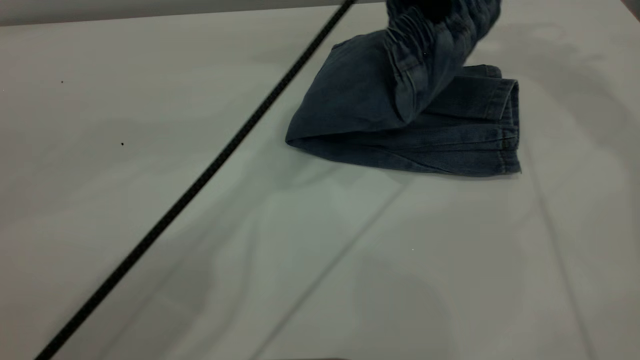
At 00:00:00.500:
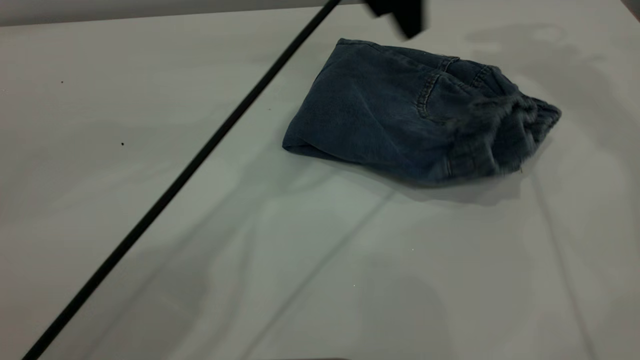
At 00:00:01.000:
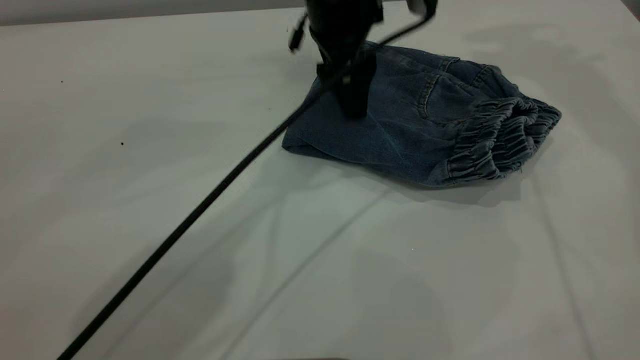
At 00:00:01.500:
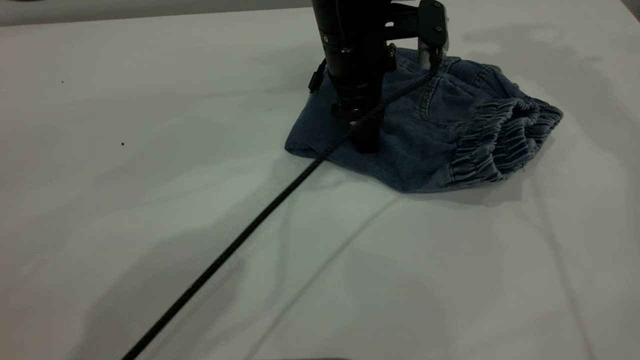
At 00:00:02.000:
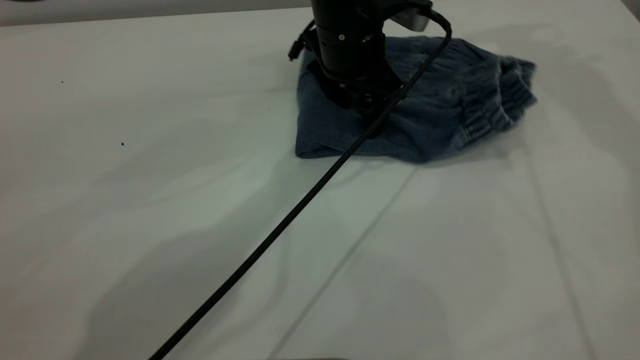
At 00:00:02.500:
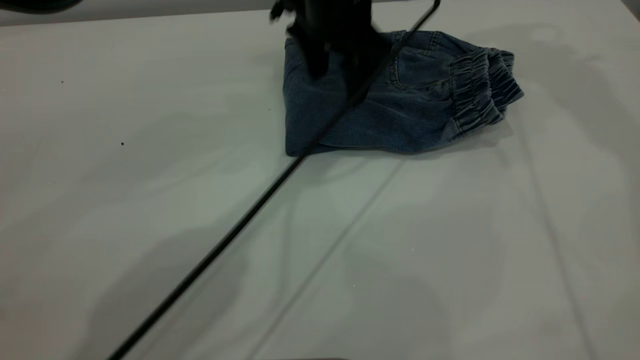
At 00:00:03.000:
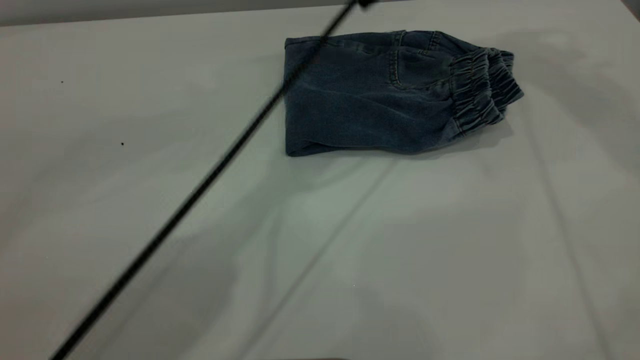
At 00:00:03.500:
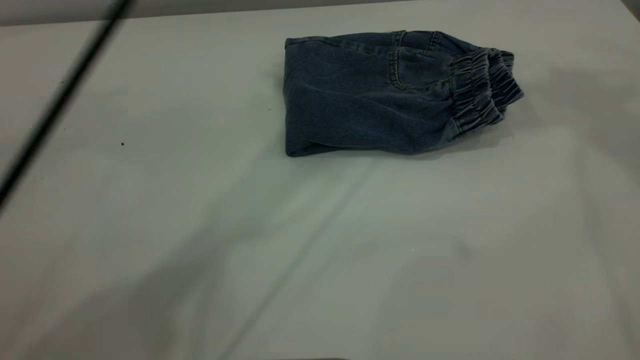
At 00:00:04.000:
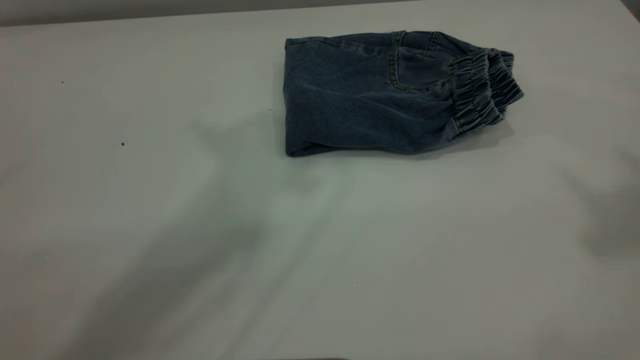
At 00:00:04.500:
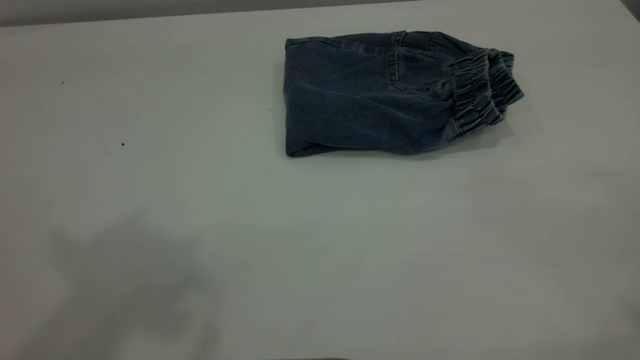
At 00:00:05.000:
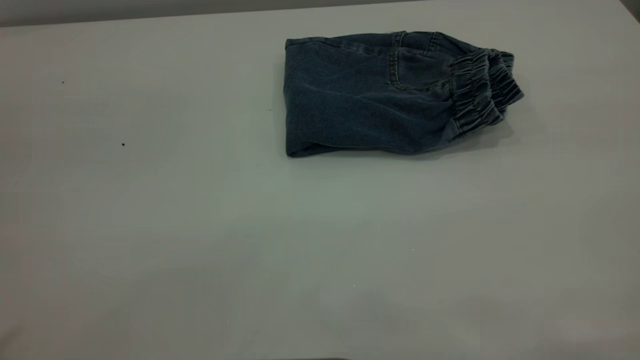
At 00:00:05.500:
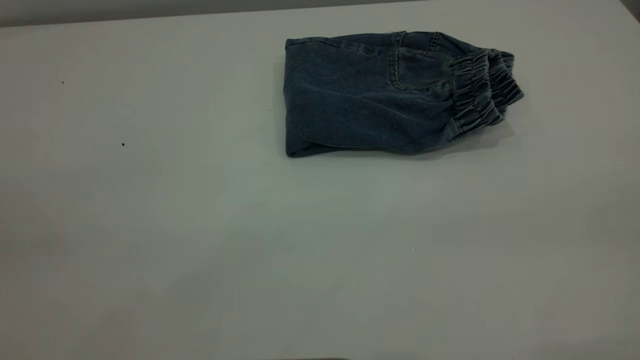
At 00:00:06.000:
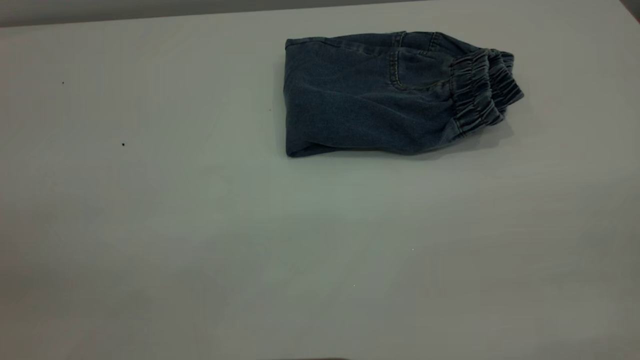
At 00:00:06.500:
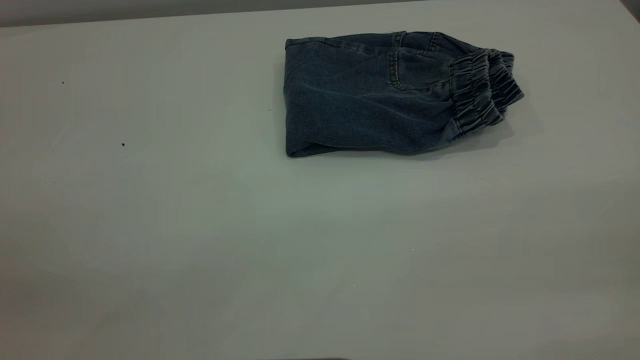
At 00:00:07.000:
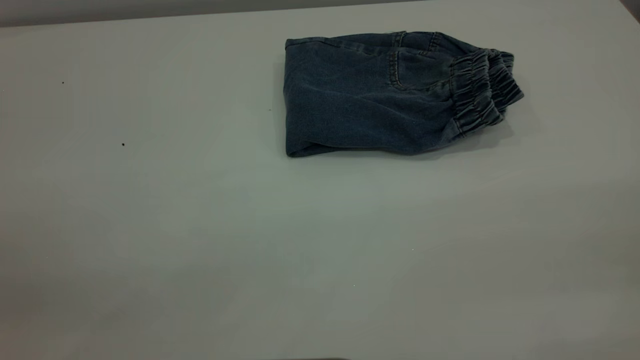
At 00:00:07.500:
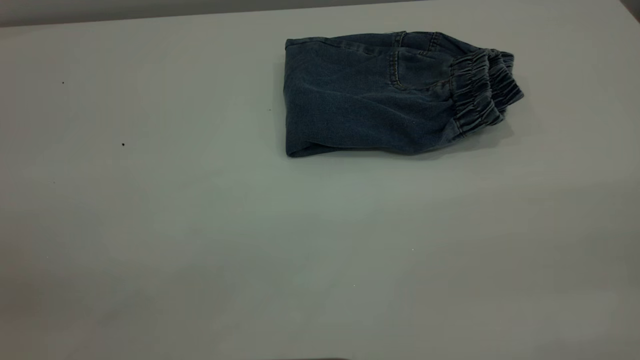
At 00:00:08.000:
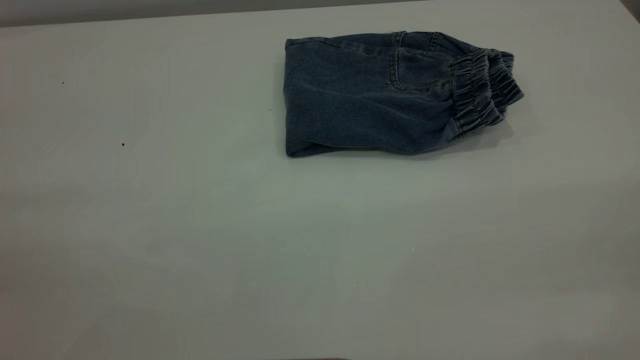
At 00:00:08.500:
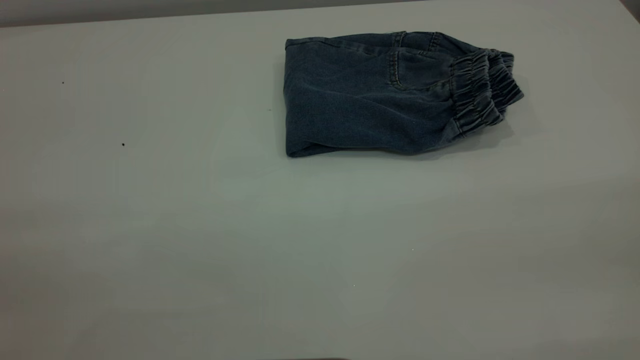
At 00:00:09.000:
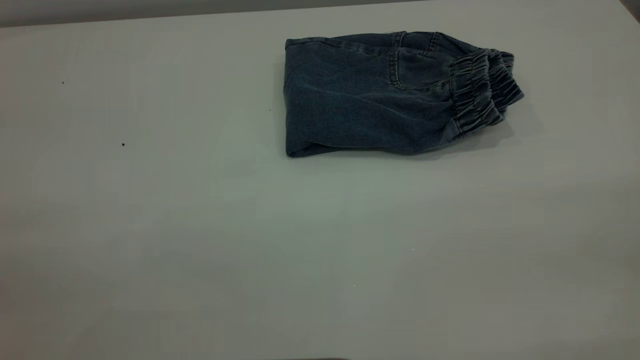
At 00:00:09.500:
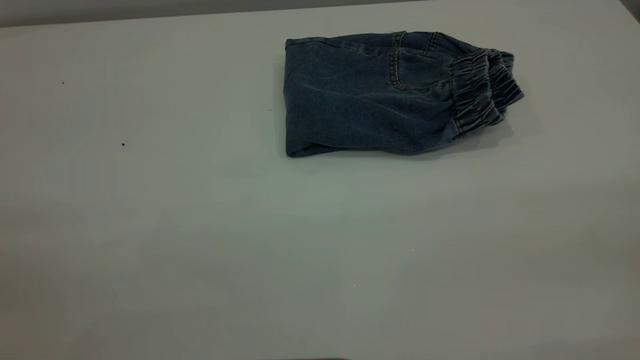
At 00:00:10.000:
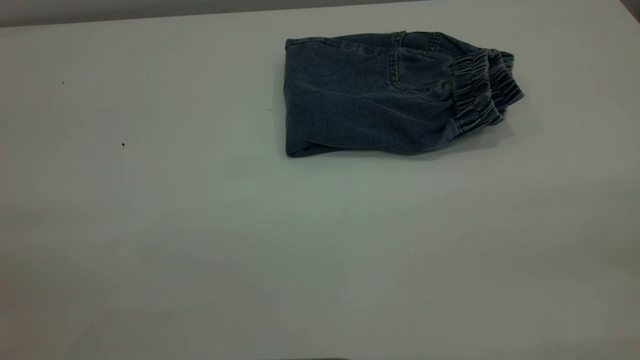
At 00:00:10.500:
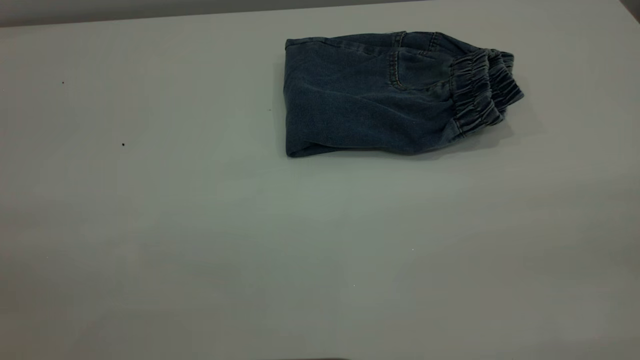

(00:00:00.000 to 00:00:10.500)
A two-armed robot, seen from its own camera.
00:00:00.000 - 00:00:02.000: The left gripper moves downward, some 10 cm, and opens up.
00:00:02.000 - 00:00:04.000: The right gripper heads backward and upward, covering some 35 cm. Meanwhile the left gripper heads upward, covering about 40 cm.

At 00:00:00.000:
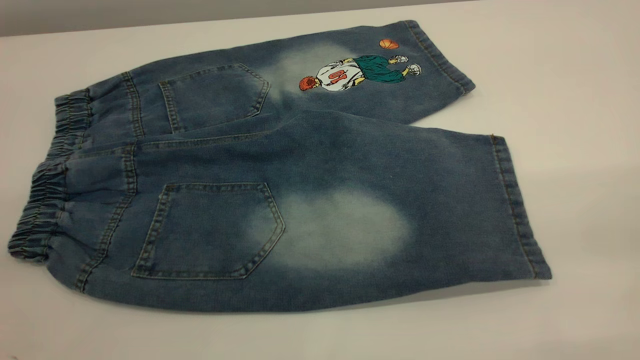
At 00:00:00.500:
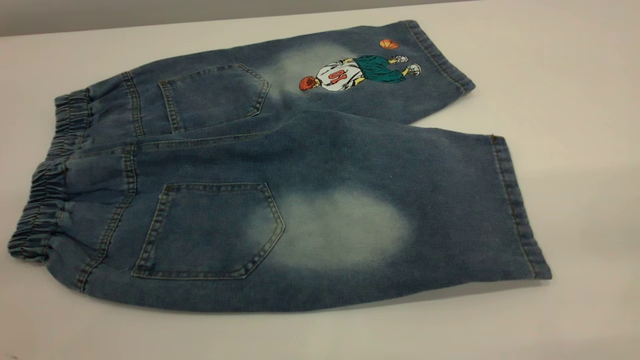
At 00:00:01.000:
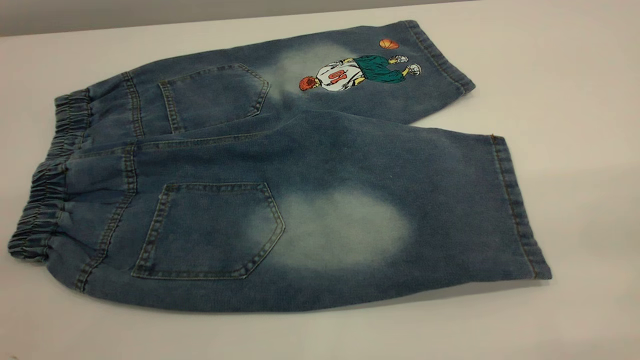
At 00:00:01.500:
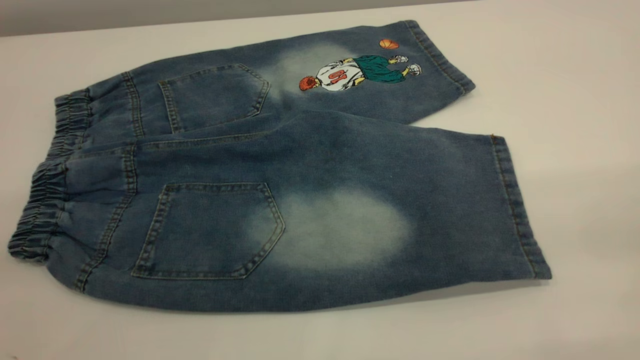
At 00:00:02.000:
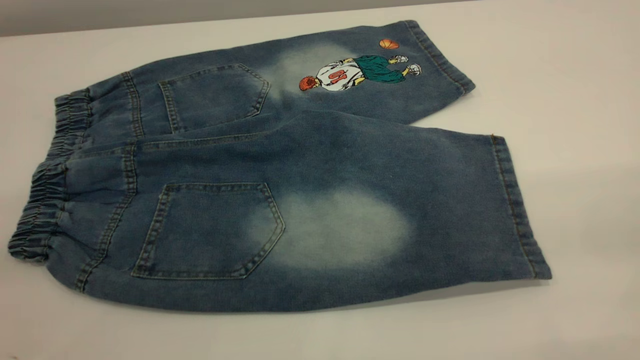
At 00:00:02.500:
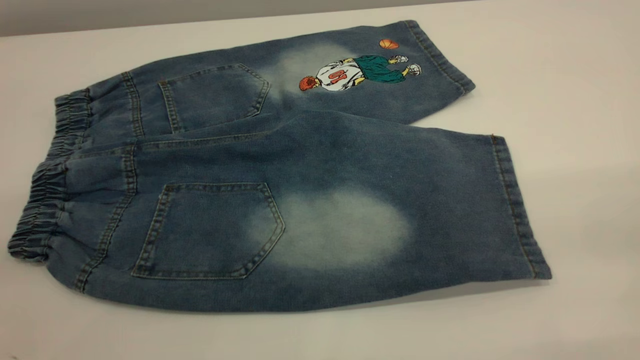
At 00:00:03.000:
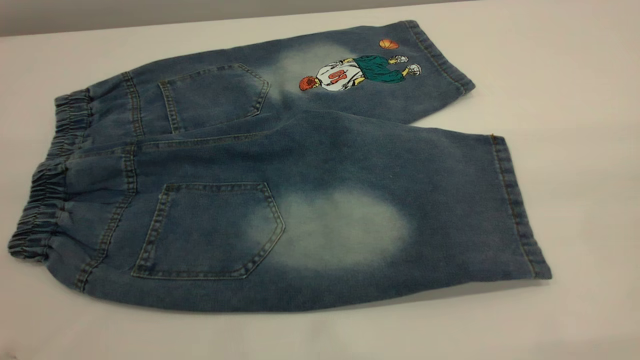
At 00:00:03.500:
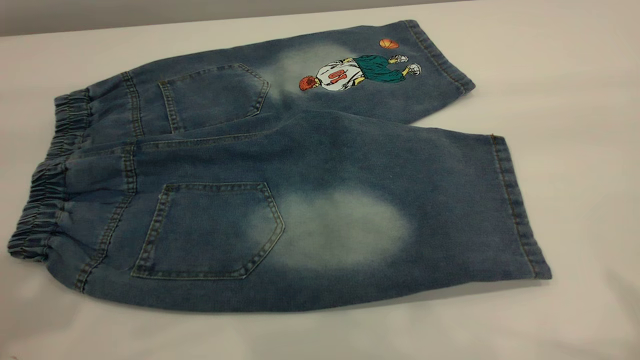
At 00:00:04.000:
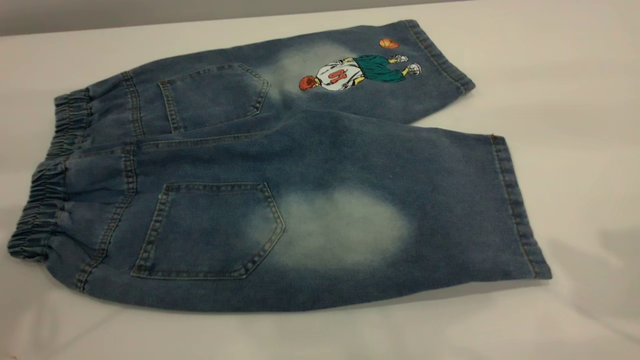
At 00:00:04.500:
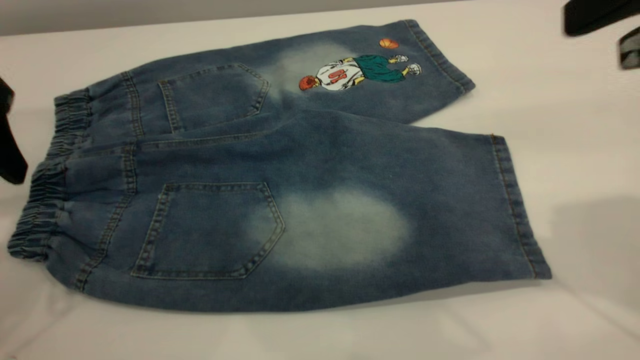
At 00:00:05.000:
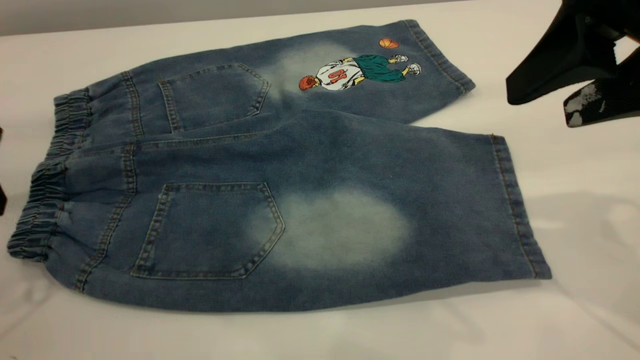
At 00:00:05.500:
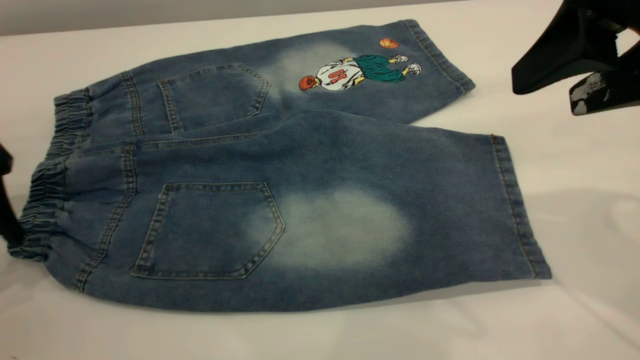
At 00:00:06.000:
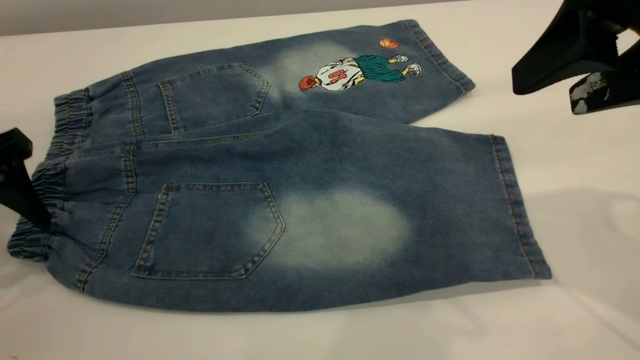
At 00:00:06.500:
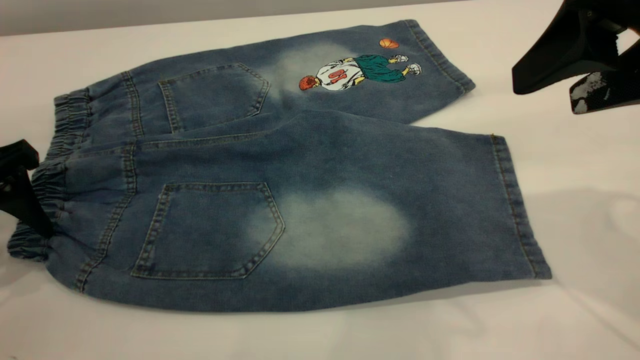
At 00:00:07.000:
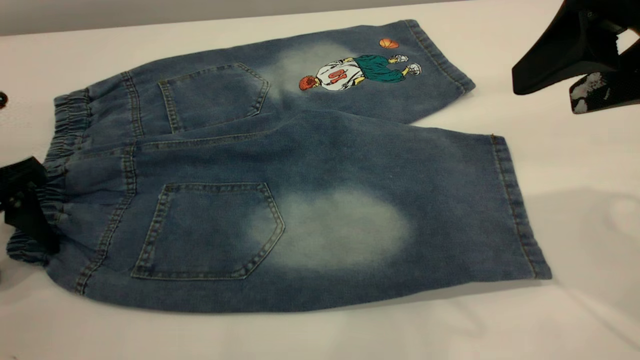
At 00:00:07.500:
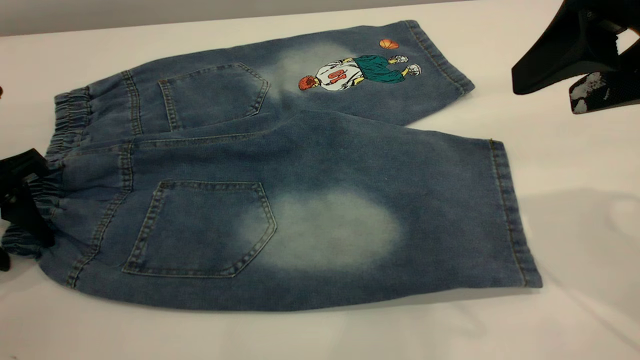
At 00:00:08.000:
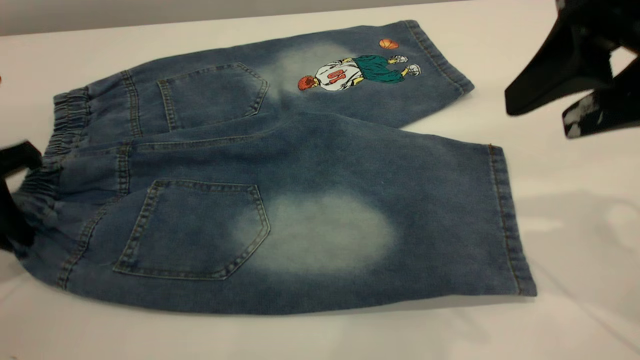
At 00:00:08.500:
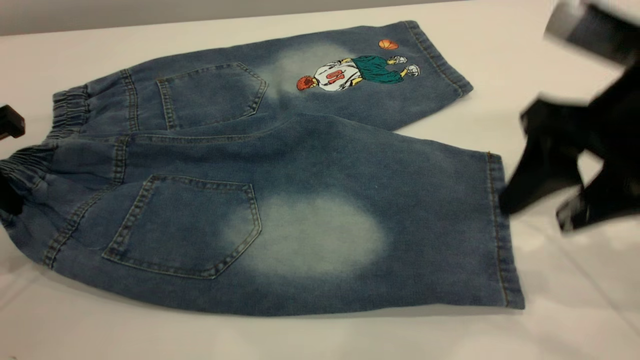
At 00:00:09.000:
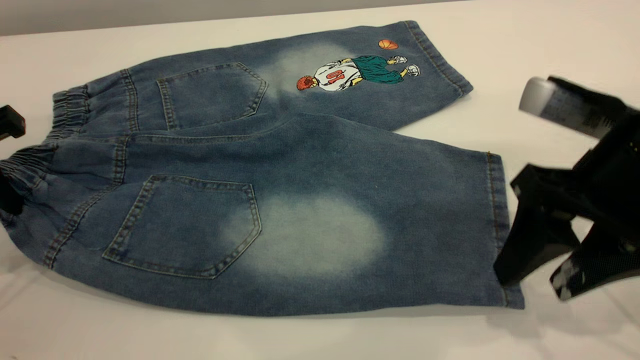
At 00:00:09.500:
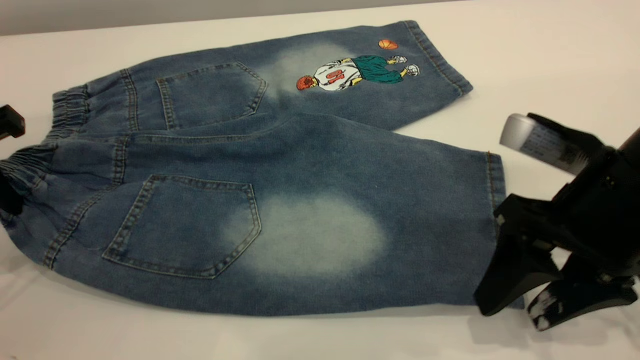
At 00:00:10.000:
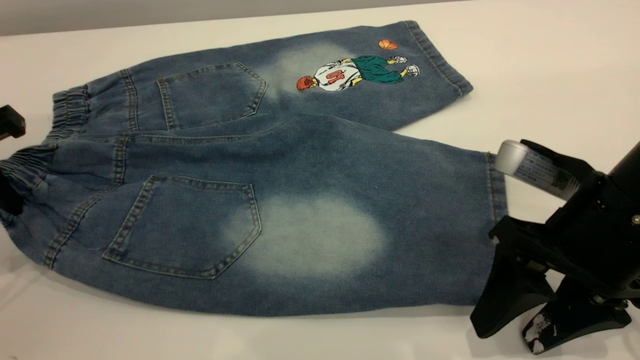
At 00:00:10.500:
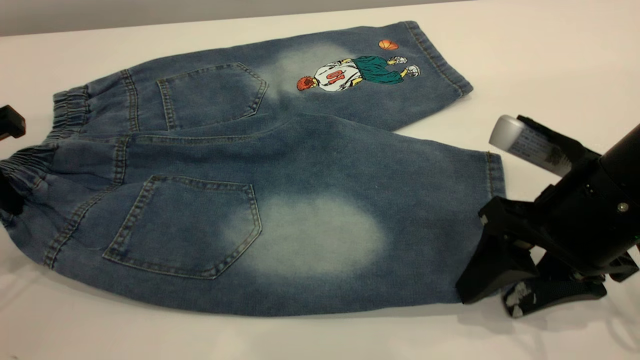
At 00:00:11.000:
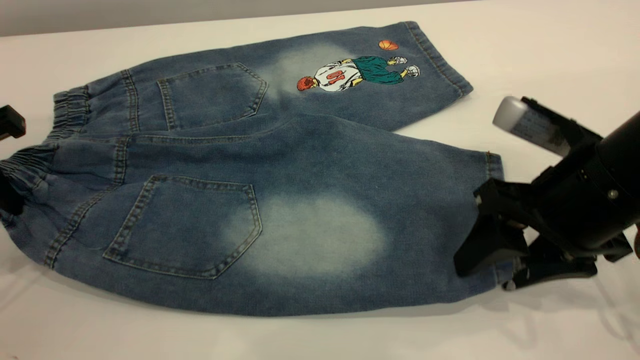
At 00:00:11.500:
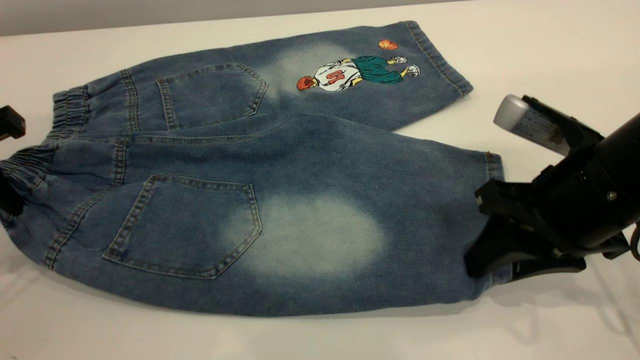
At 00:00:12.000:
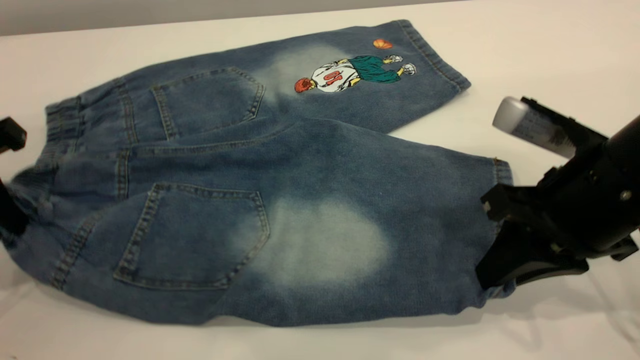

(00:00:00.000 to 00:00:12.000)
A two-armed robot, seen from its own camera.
00:00:00.000 - 00:00:02.000: Both grippers stay put.
00:00:04.000 - 00:00:06.000: The left gripper goes about 15 cm downward, while the right gripper shifts approximately 5 cm downward.
00:00:06.000 - 00:00:08.000: The left gripper closes its fingers.
00:00:08.000 - 00:00:10.000: The right gripper travels downward by approximately 15 cm.
00:00:10.000 - 00:00:12.000: The right gripper closes up.
